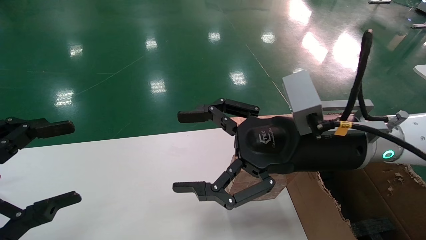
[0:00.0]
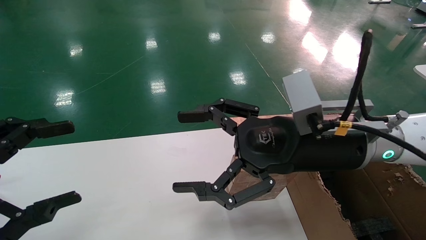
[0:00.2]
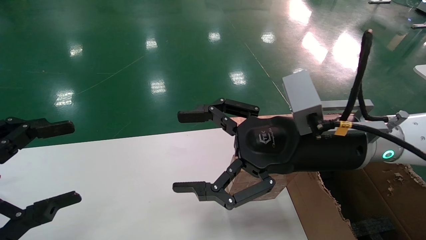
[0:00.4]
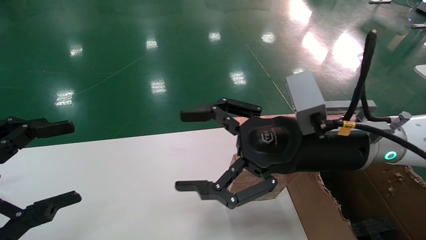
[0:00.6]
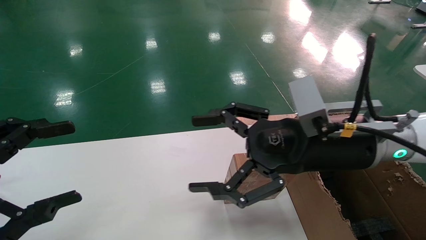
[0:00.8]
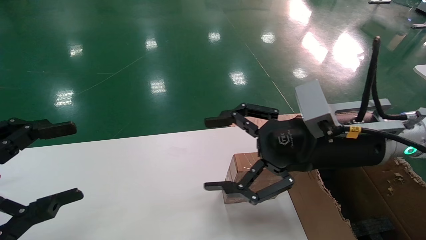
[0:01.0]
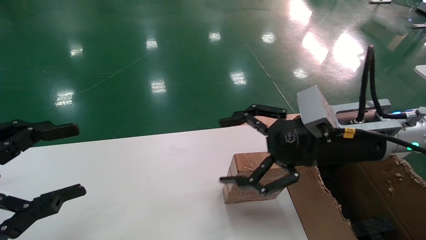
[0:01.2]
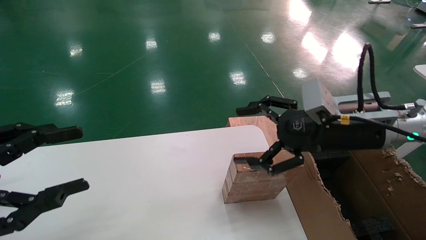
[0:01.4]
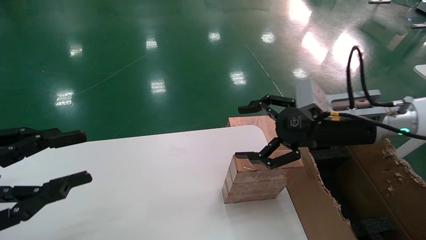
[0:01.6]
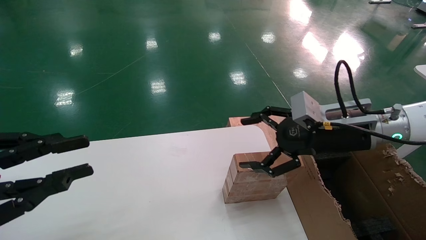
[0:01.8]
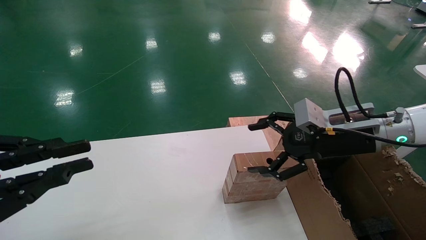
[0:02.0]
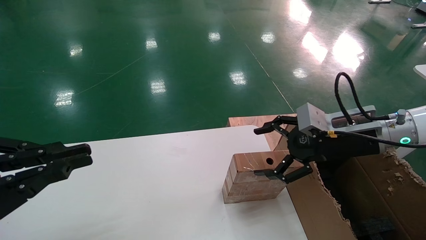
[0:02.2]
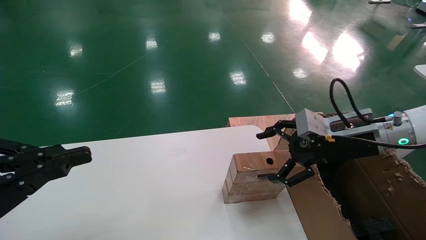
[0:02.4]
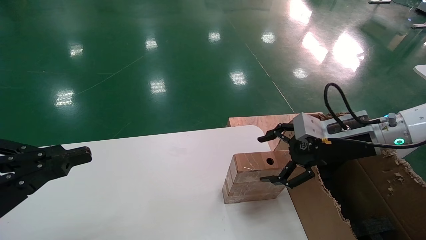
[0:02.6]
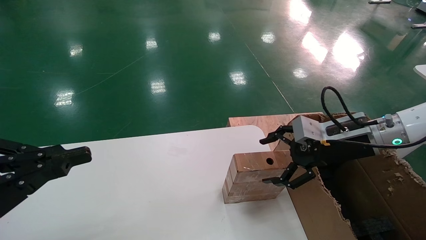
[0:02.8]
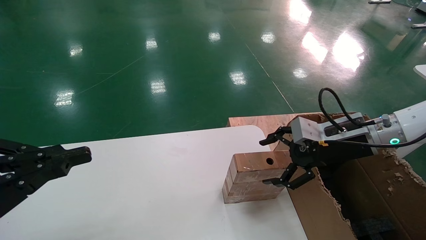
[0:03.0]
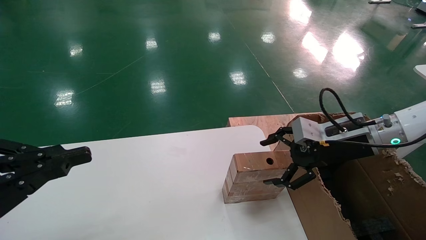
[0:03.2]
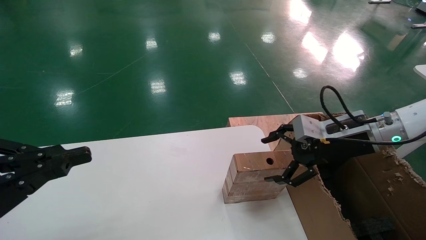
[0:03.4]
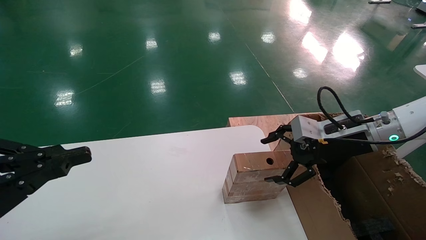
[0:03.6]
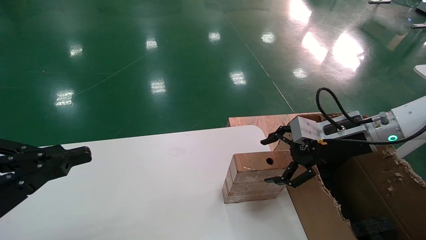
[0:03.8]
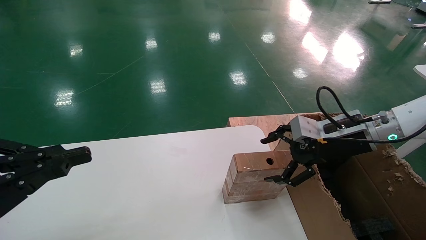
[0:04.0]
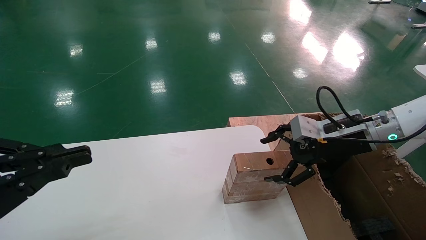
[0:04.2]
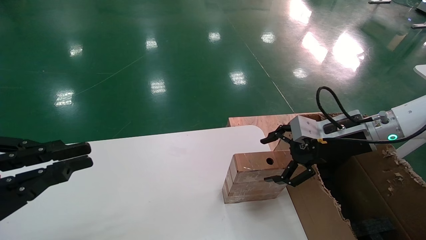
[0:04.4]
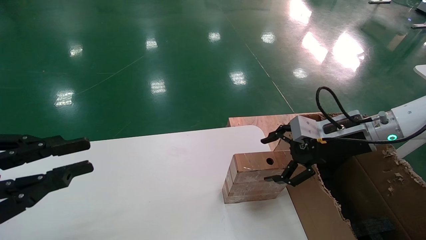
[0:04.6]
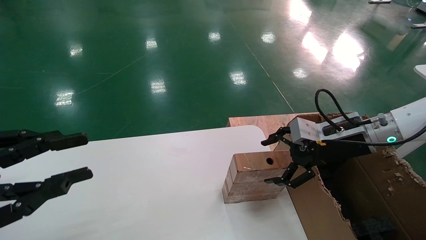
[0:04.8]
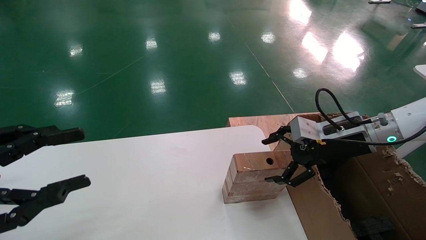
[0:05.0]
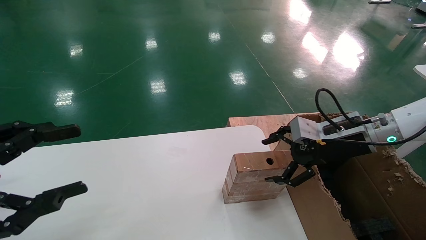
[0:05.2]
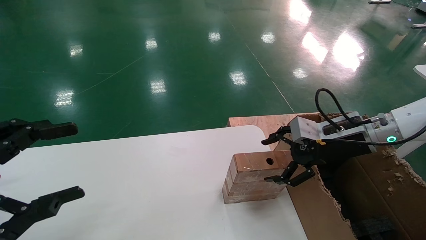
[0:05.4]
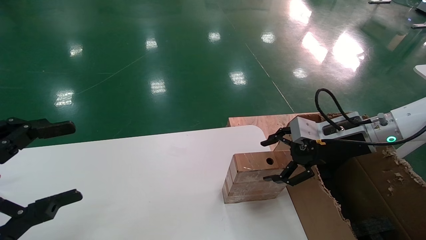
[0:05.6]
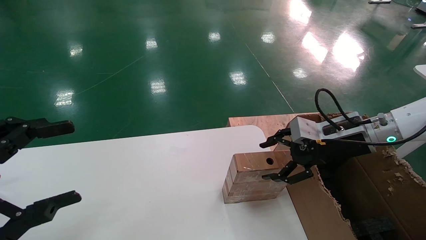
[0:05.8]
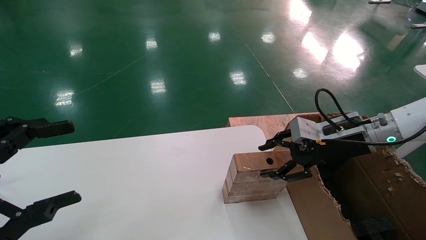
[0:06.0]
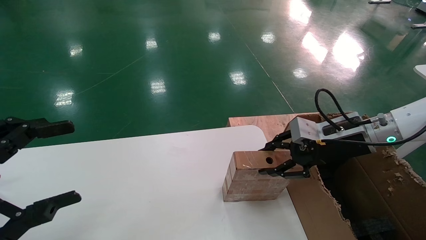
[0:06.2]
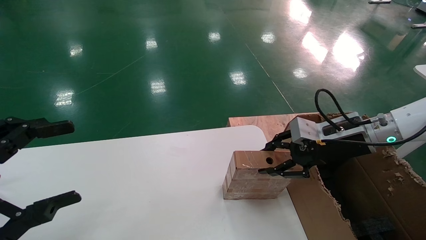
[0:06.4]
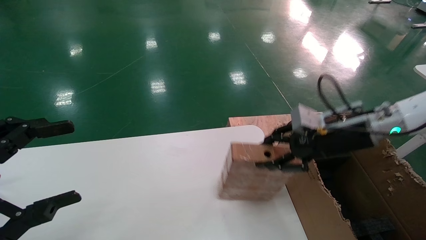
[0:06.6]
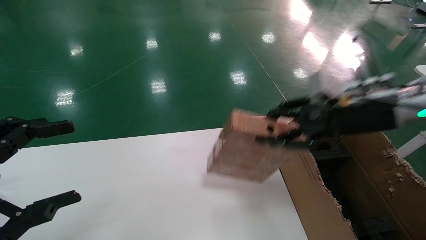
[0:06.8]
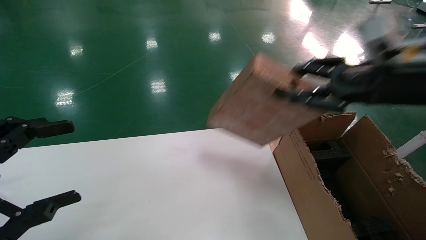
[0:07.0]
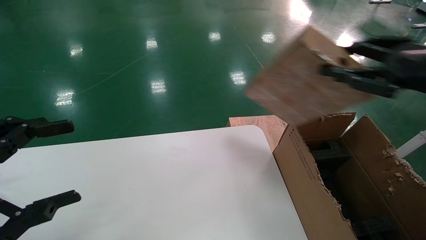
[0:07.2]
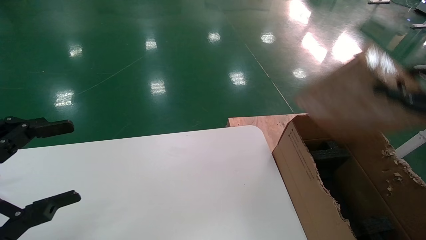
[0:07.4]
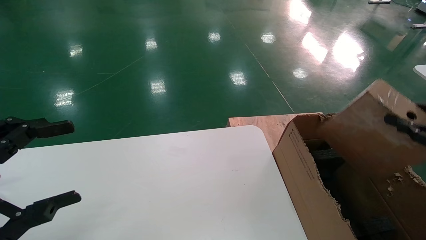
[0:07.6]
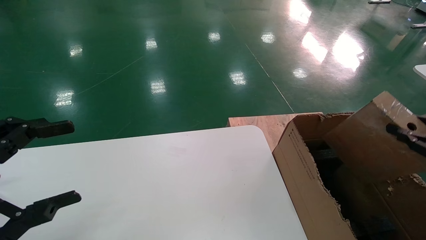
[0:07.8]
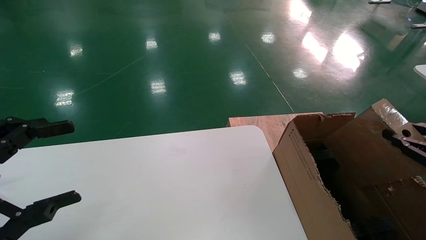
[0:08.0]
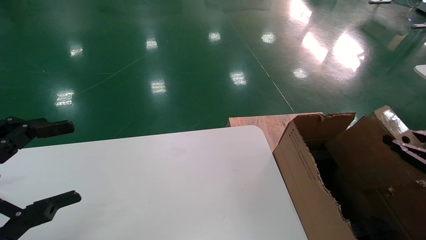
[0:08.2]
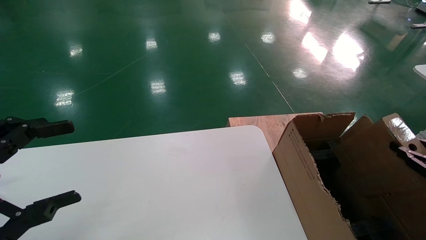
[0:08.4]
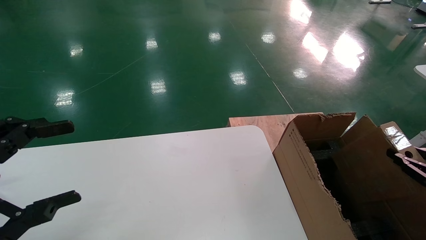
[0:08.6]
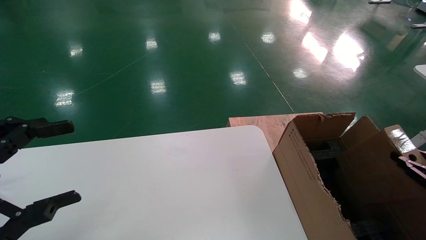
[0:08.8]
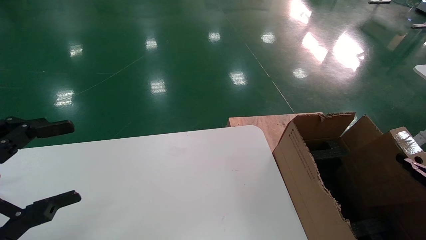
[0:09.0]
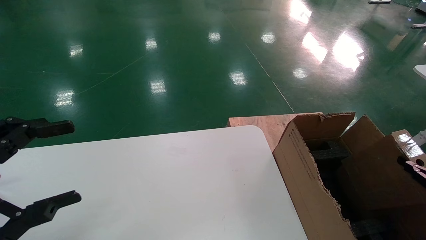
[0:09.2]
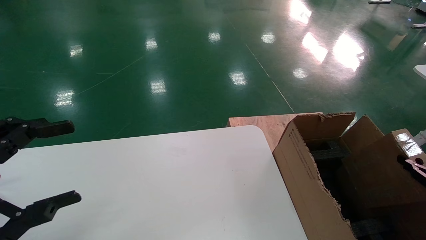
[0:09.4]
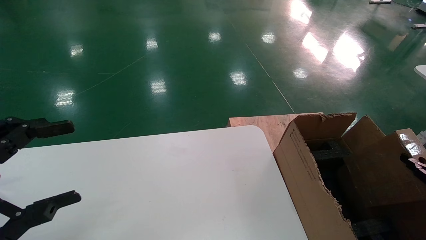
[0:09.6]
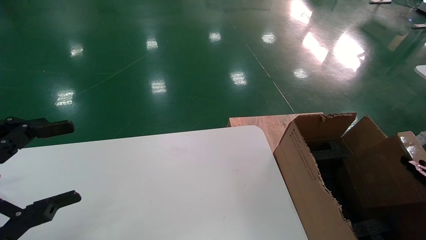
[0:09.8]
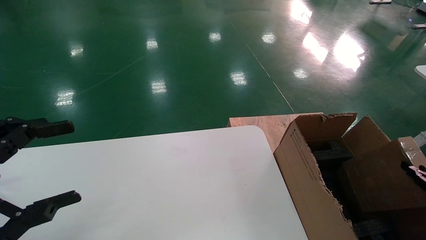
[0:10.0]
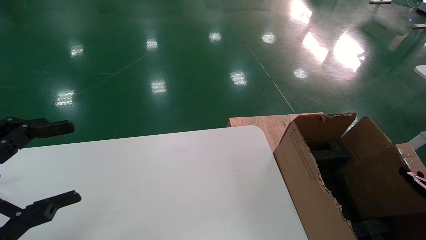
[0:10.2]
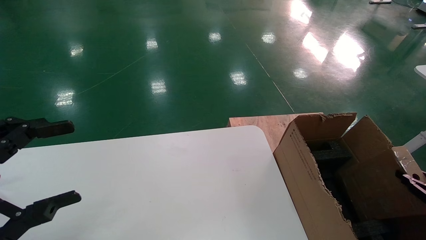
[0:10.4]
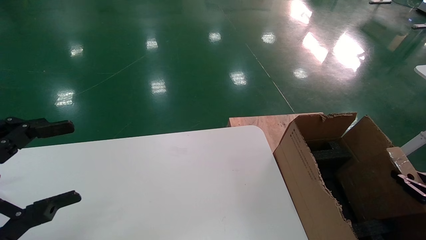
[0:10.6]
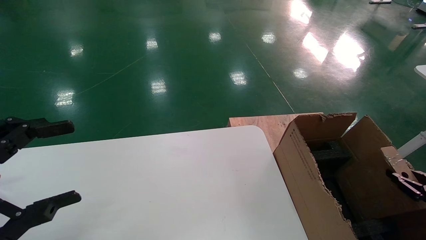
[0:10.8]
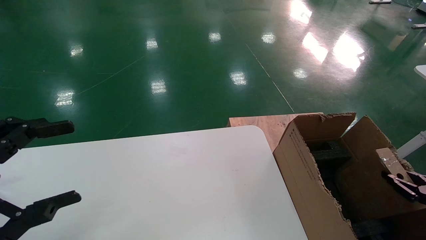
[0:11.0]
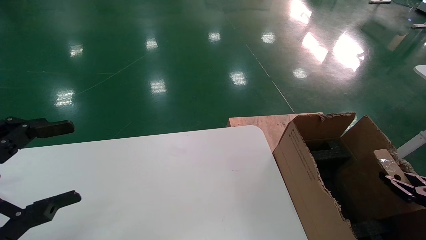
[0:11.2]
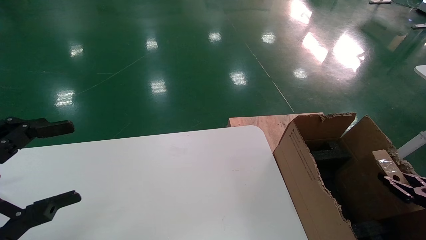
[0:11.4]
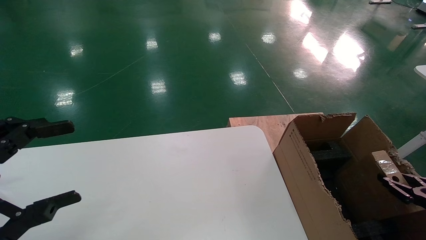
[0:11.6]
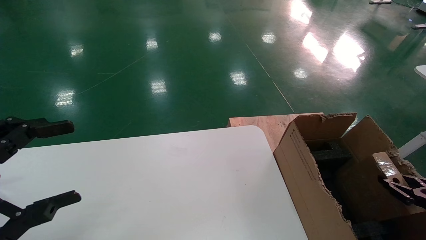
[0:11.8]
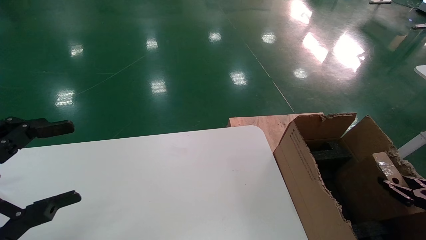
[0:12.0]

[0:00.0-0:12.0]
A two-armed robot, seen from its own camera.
Task of the whole recording: put the box on the table into the big box.
Step, 0:01.2 to 0:06.4: Pick up the mouse and the power cord paper box.
0:00.0 to 0:01.6: The right gripper is displaced to the right by some 10 cm, while the left gripper closes its fingers.
0:01.6 to 0:03.0: The left gripper closes; the right gripper shifts by approximately 5 cm.
0:03.0 to 0:04.4: The two grippers keep their place.
0:04.4 to 0:06.0: The right gripper closes. The left gripper opens.
0:06.0 to 0:07.6: The right gripper shifts some 25 cm backward and to the right, and closes its fingers.
0:07.6 to 0:09.0: The right gripper heads downward and to the right, covering some 15 cm.
0:09.0 to 0:10.4: The right gripper heads downward, covering about 5 cm.
0:10.4 to 0:12.0: The grippers move only a little.

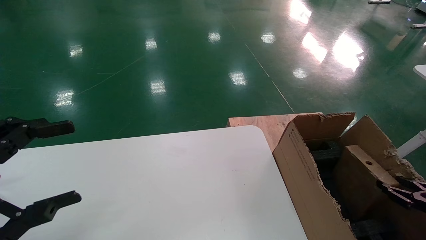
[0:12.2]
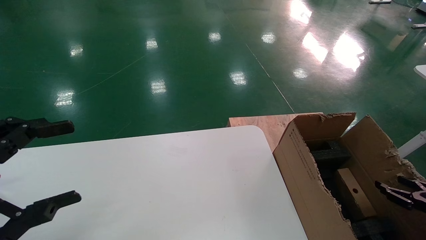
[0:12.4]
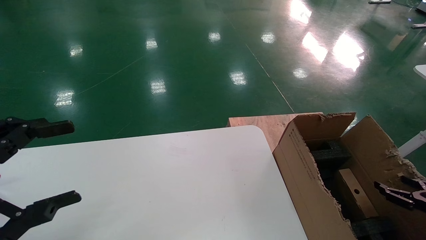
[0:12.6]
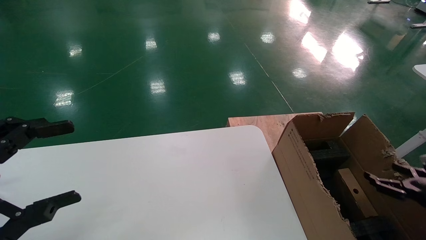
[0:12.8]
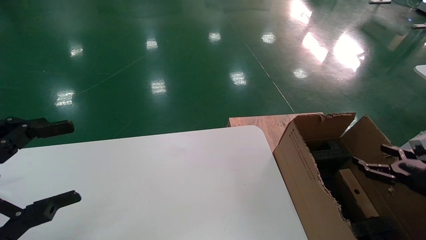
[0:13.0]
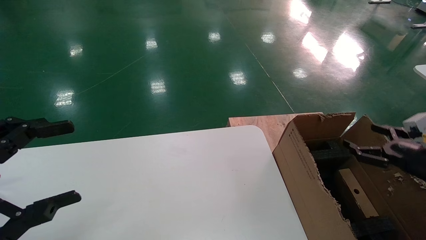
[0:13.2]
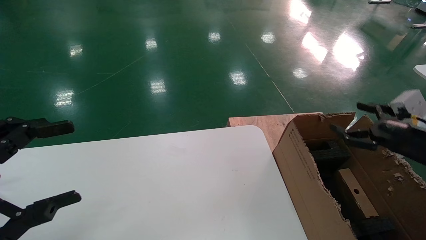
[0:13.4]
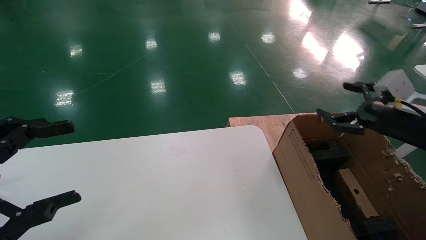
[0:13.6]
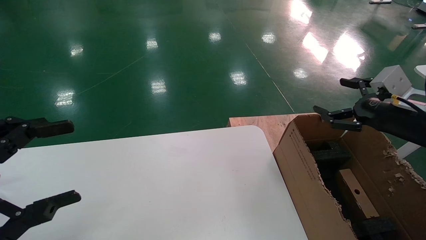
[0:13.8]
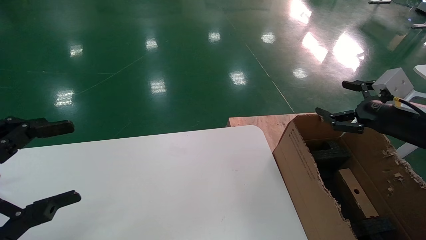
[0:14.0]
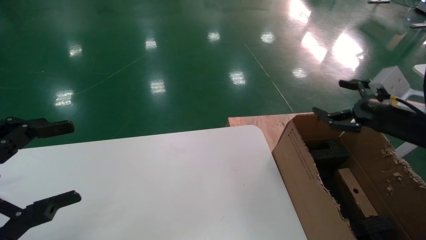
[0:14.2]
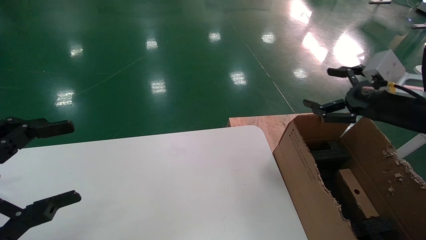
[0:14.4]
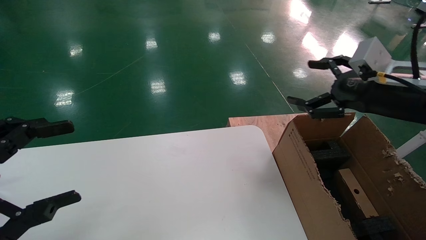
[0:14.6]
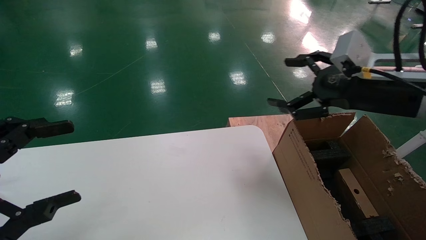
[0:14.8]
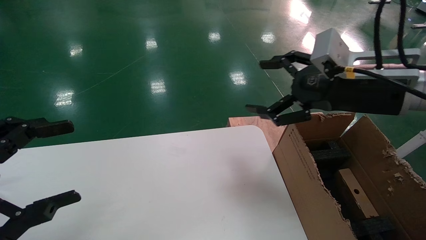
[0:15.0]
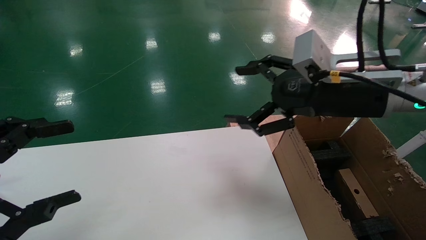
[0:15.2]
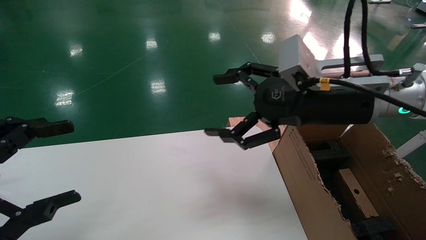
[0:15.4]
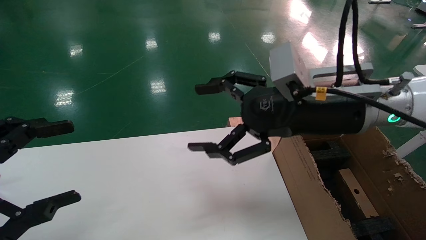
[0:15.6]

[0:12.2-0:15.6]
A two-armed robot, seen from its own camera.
Task of the whole recording: put the box on the table into the big box.
0:12.2 to 0:13.8: The right gripper is displaced upward and to the left by approximately 25 cm, and opens its fingers.
0:13.8 to 0:15.6: The right gripper moves to the left, about 20 cm.
